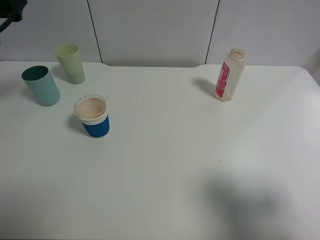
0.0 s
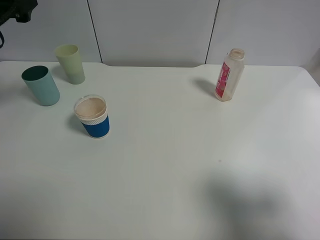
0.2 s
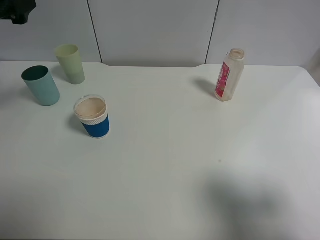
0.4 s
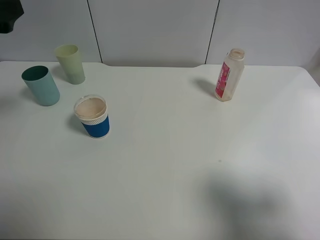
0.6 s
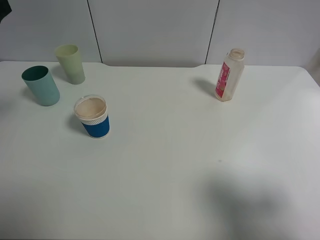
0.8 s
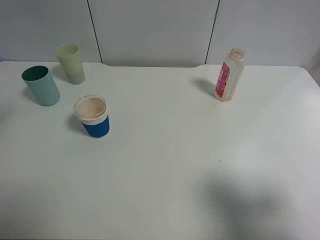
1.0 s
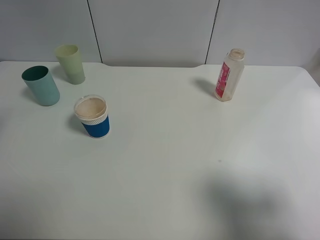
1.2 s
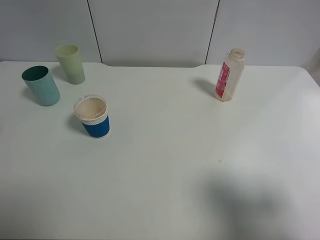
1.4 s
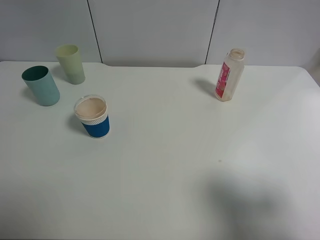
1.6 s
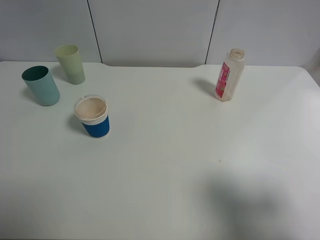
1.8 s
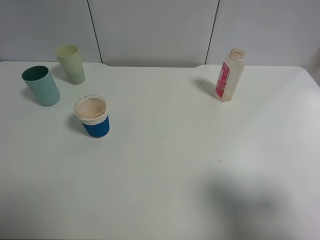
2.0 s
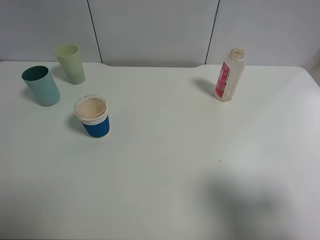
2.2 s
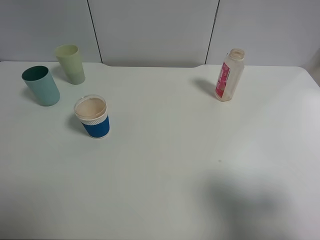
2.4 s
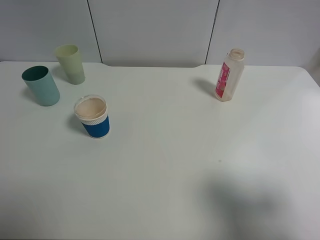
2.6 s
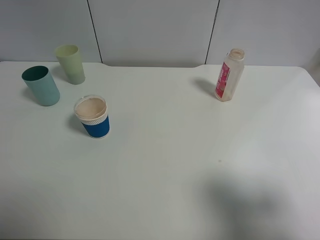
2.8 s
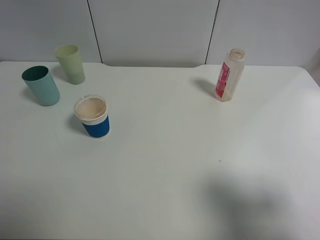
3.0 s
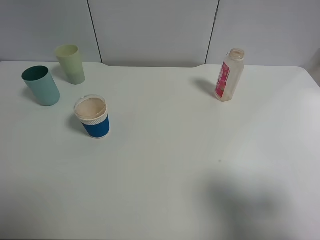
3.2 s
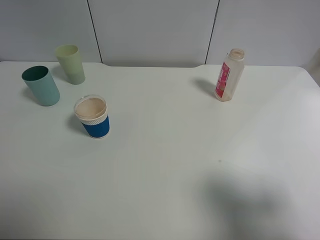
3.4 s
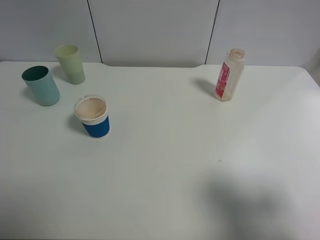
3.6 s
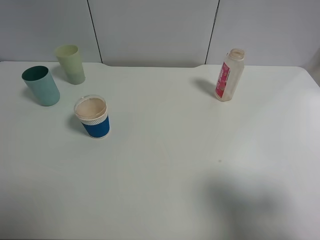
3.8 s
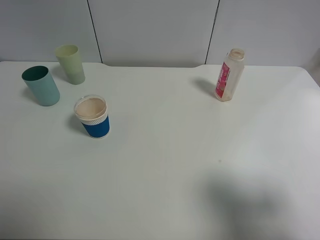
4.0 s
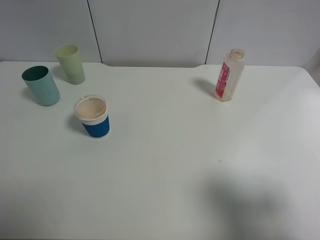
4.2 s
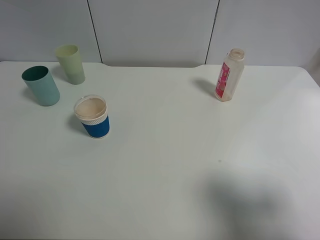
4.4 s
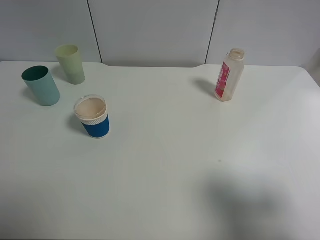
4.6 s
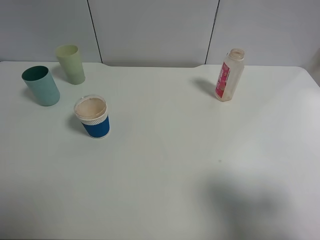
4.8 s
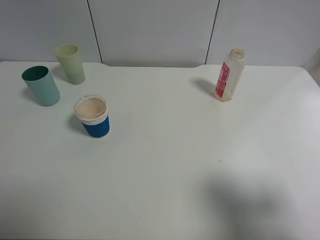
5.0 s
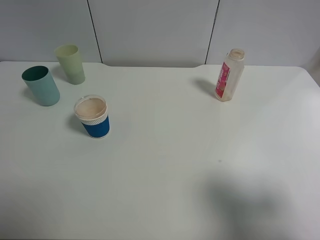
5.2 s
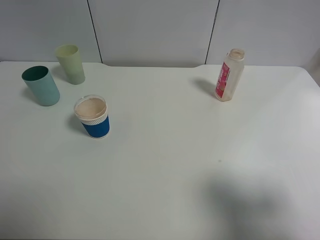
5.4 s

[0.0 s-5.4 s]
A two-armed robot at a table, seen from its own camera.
Task of the whole recording: use a clamp to hold the bottle of the drink, pour the beverage into a random cup, then clamp the cup containing the drink and pour the drink into another random cup.
0.0 to 1.4 s: The left gripper is displaced backward by roughly 20 cm.
2.8 to 4.0 s: Both grippers stay about where they are.
